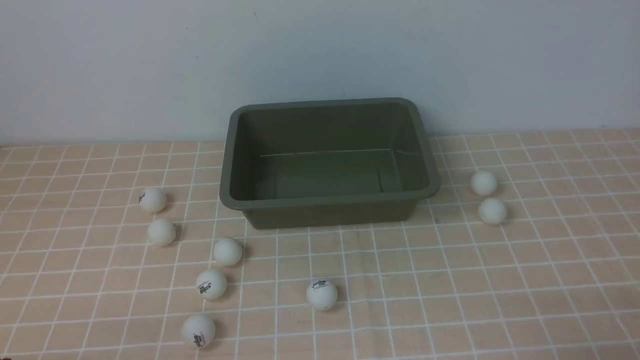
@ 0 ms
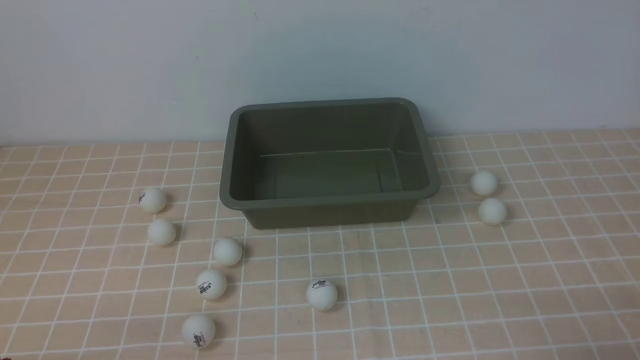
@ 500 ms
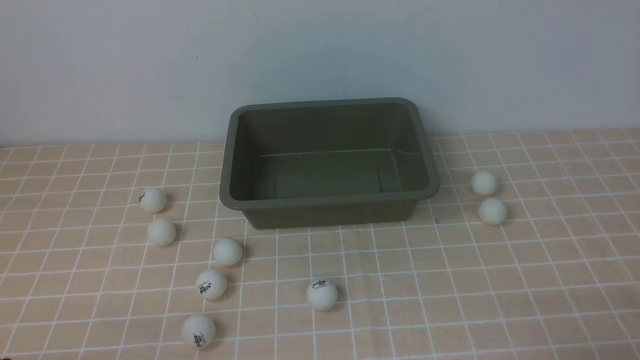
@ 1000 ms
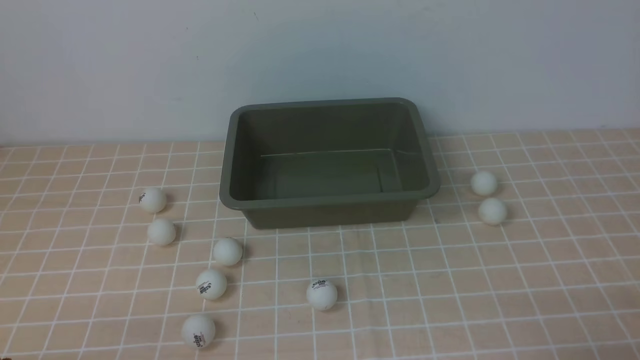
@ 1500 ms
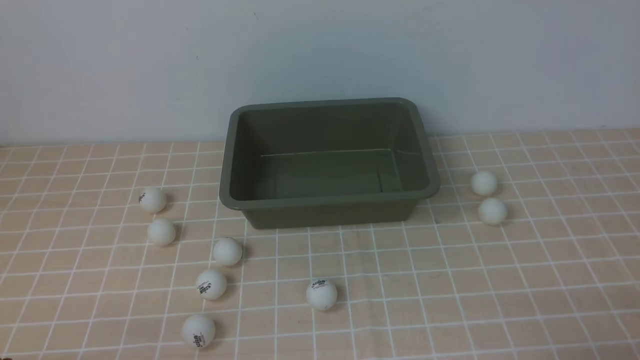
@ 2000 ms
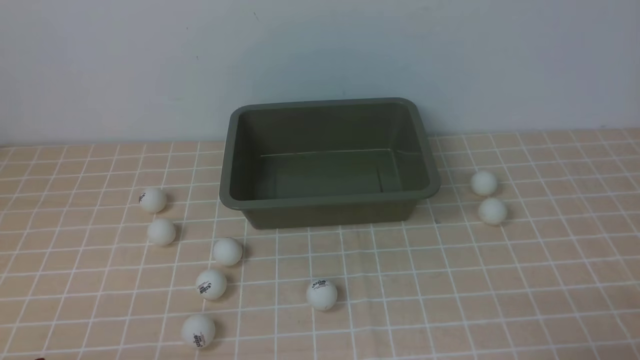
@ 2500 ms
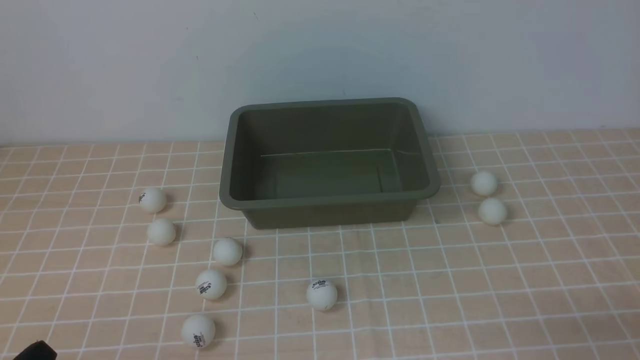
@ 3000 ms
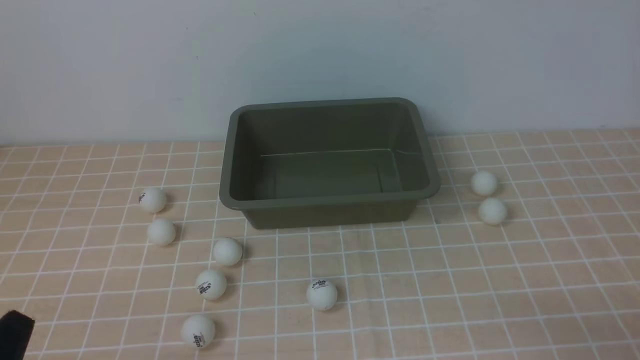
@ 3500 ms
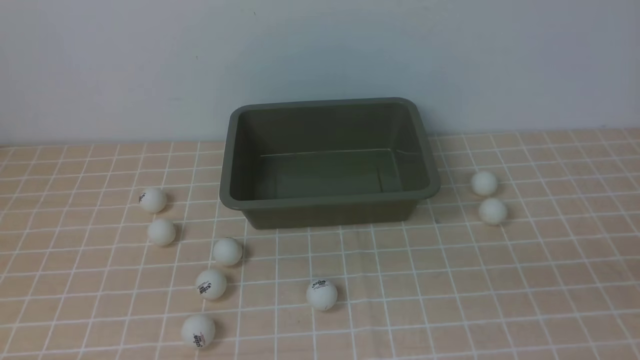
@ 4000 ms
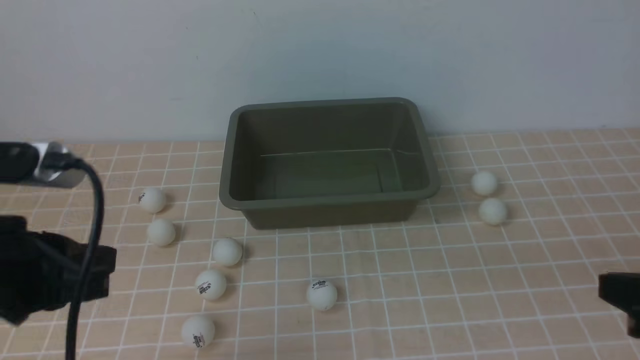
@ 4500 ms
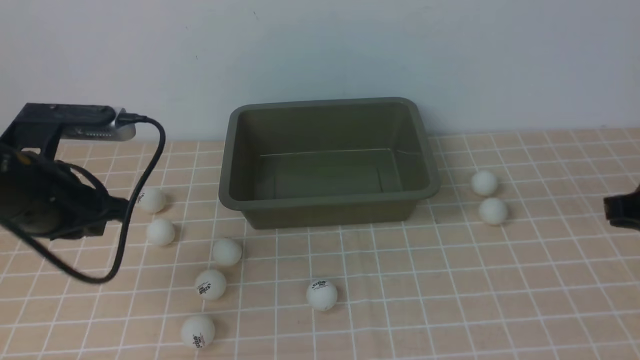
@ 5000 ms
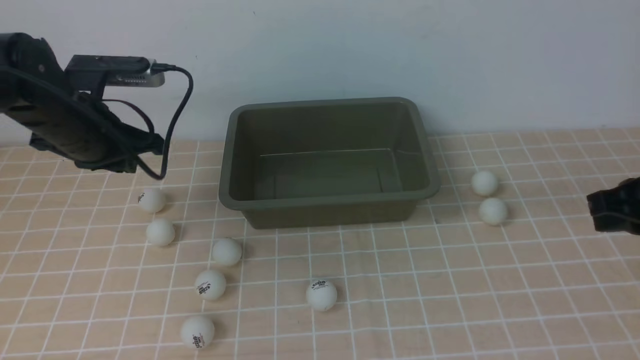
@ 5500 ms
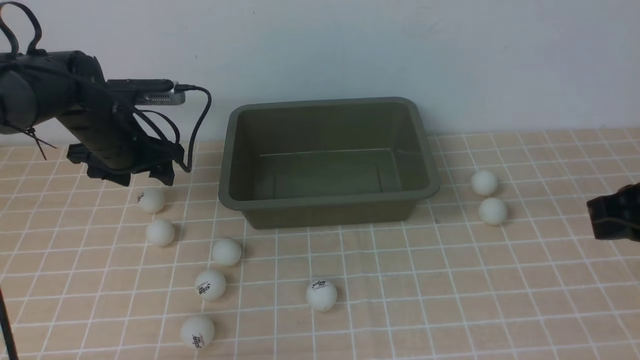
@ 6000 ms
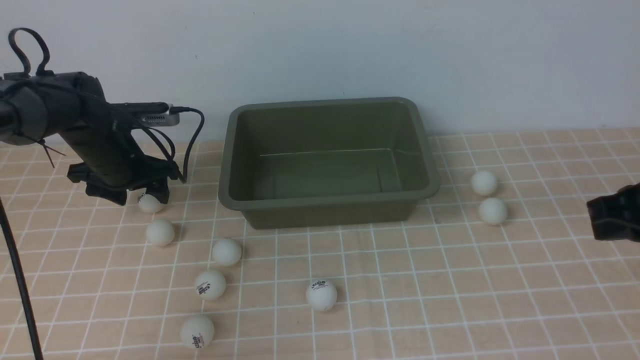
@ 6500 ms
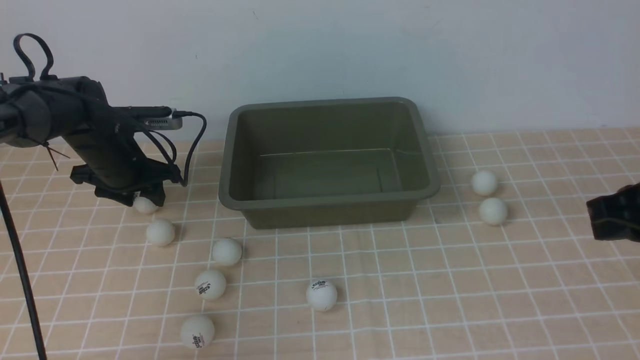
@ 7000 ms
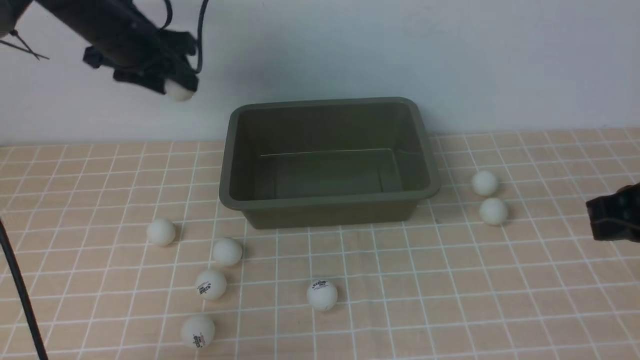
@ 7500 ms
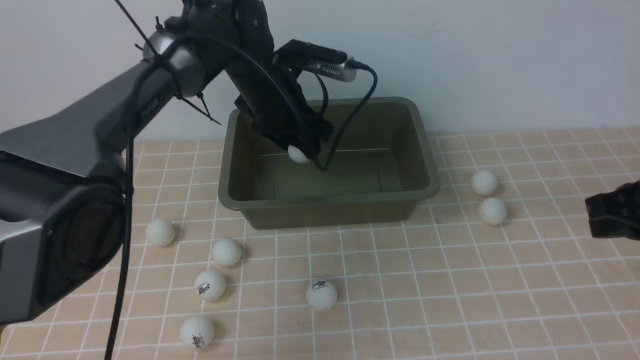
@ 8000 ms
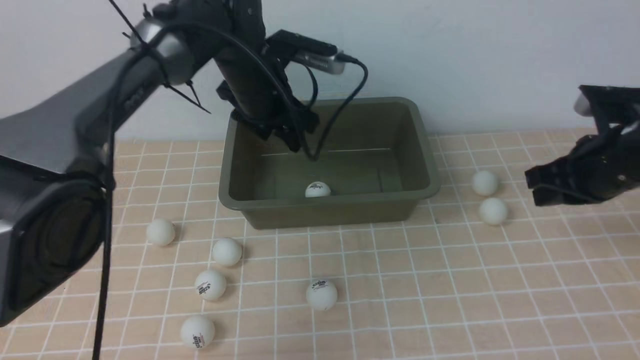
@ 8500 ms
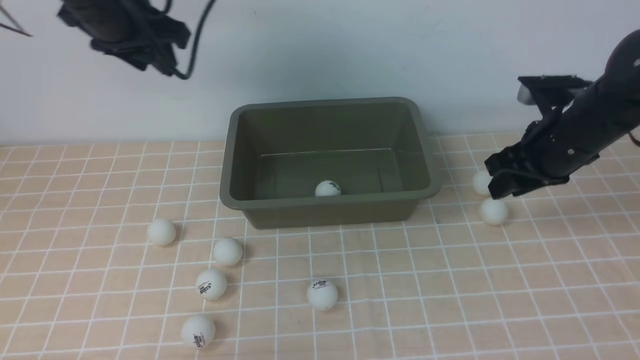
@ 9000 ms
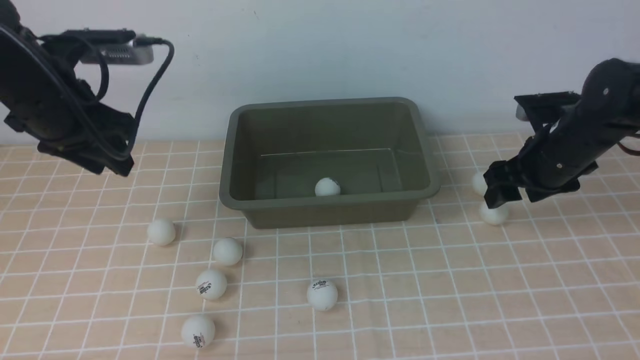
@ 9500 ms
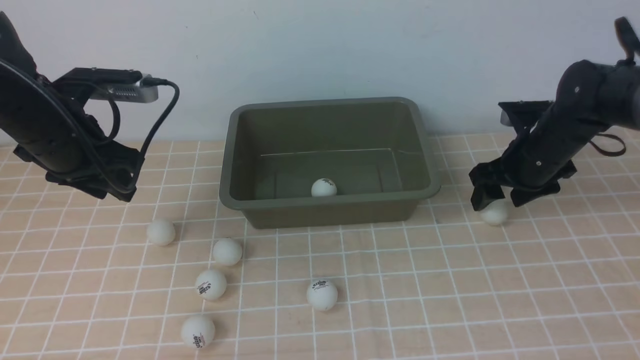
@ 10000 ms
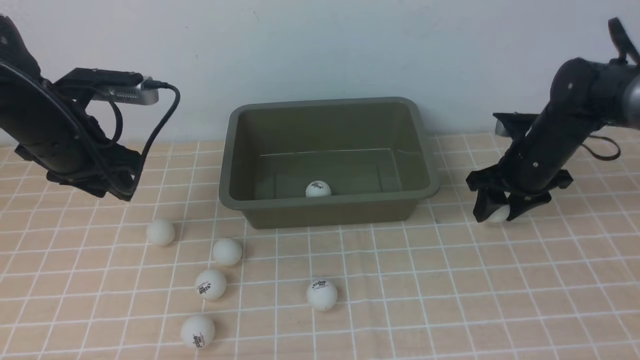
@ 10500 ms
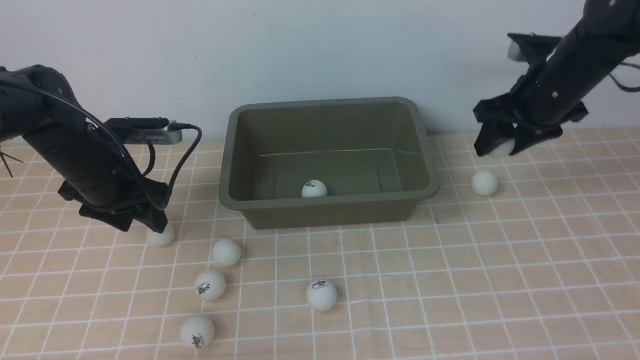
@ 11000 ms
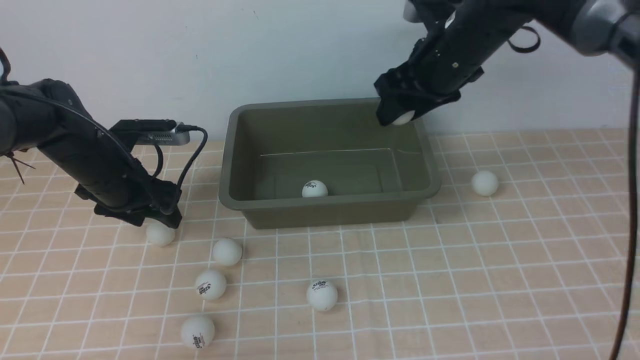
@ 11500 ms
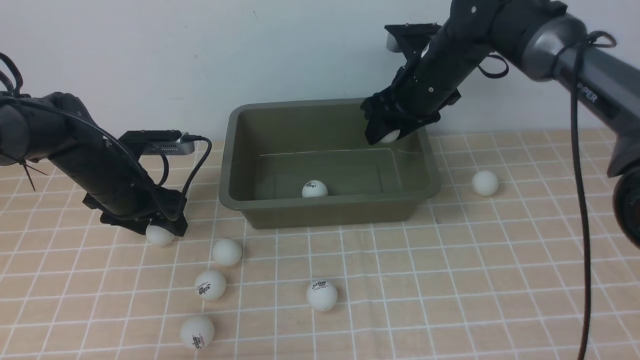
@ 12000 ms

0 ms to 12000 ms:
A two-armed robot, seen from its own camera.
Step, 0 ms to 7000 ms: use the left arm to clamp the table tennis ball closest to it.
Step, 7500 ms to 8500 ms: use the left arm to put the table tennis ball into the box.
Step, 9000 ms to 10500 ms: use the right arm to clamp the table tennis ball closest to it.
4000 ms to 6000 ms: The left gripper is displaced forward by about 40 cm, and opens up, while the right gripper is displaced forward by roughly 20 cm.
6000 ms to 8000 ms: The left gripper shifts approximately 15 cm to the right.
8000 ms to 10000 ms: The right gripper moves forward and downward, some 20 cm, and opens up, while the left gripper shifts roughly 20 cm to the left and backward.
10000 ms to 12000 ms: The left gripper is displaced downward and forward by some 15 cm, and opens up, while the right gripper goes roughly 15 cm to the left and upward.

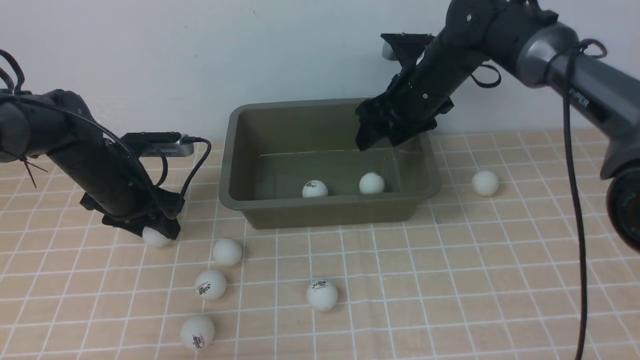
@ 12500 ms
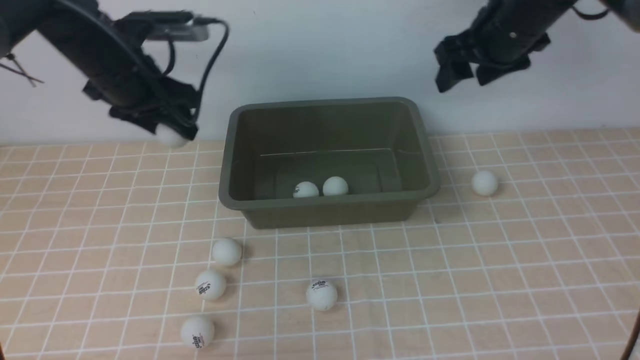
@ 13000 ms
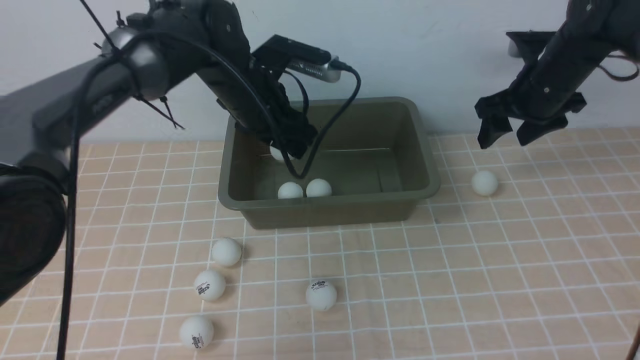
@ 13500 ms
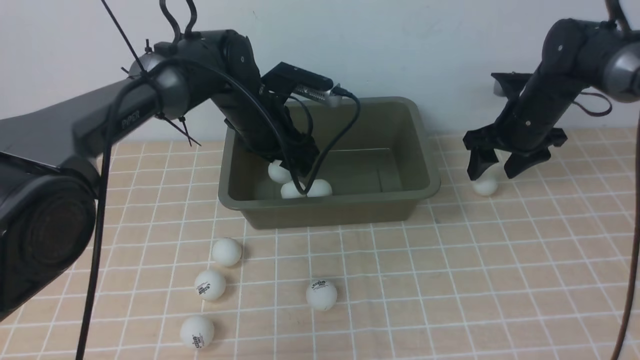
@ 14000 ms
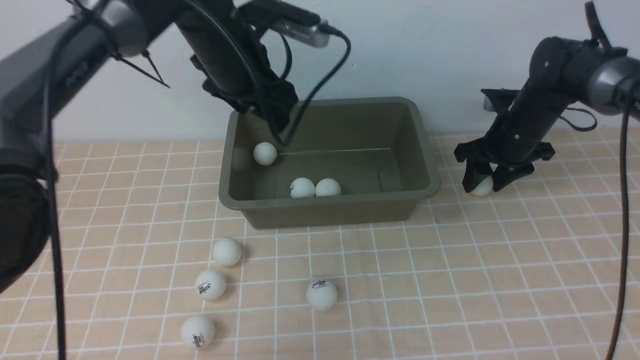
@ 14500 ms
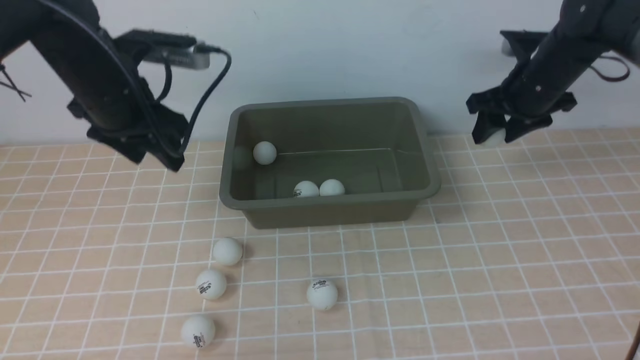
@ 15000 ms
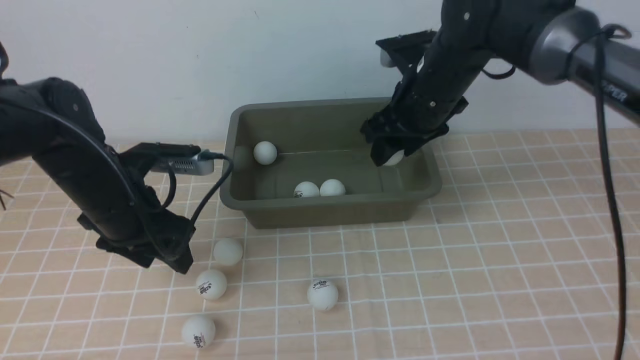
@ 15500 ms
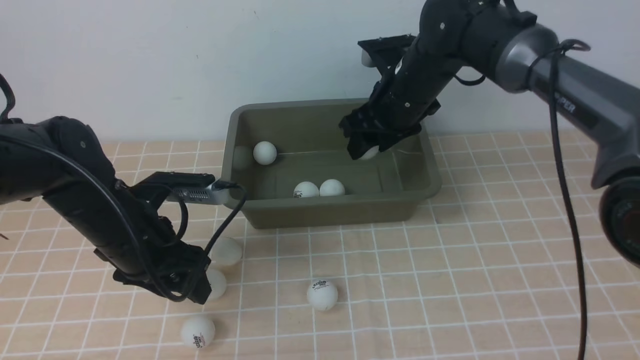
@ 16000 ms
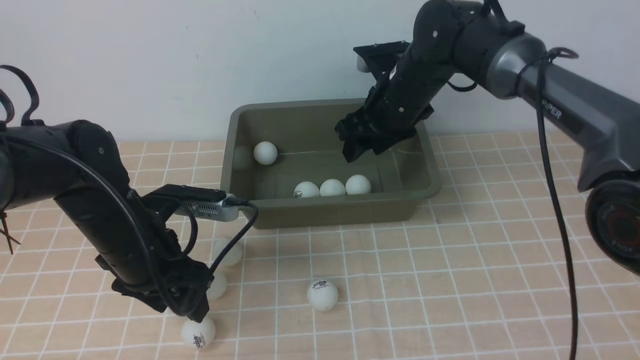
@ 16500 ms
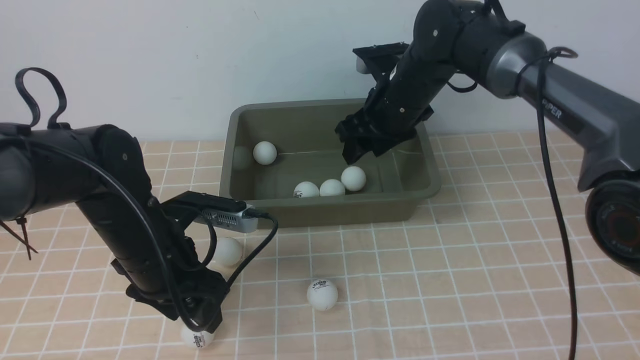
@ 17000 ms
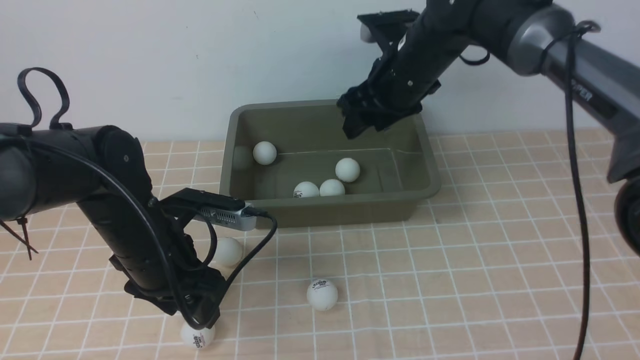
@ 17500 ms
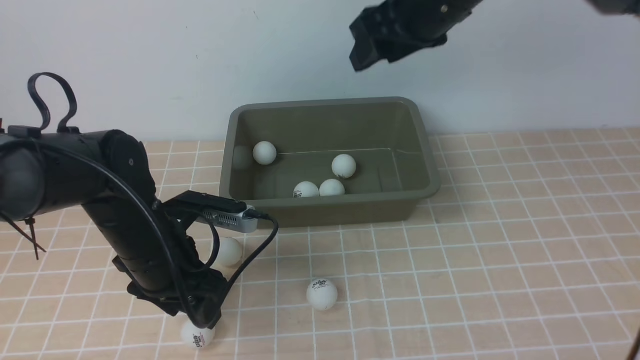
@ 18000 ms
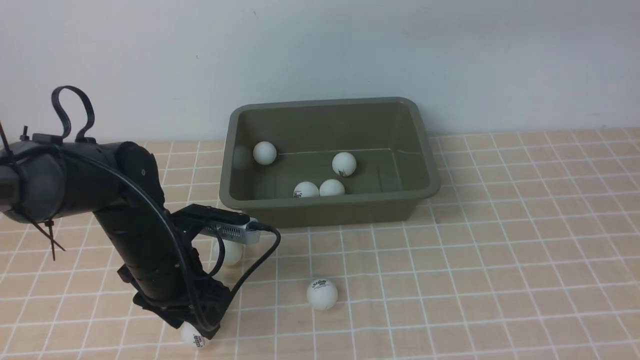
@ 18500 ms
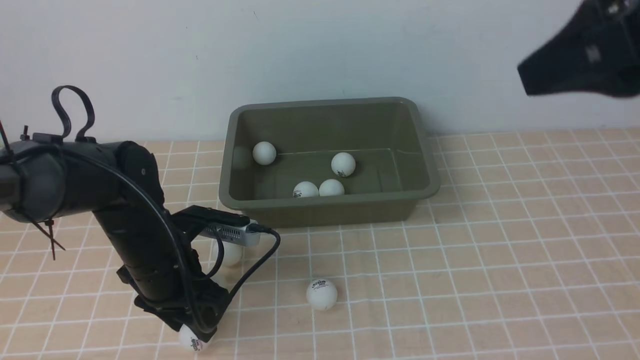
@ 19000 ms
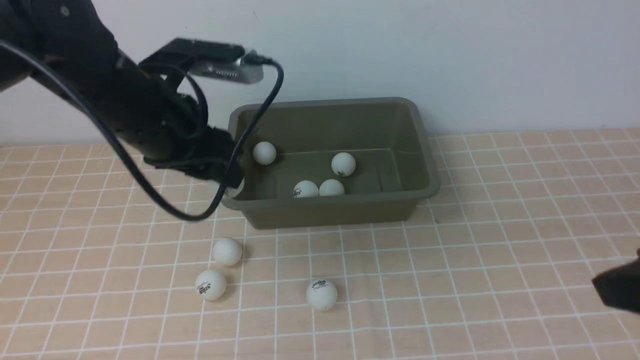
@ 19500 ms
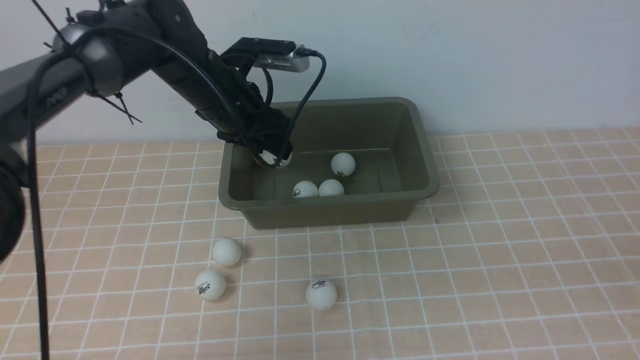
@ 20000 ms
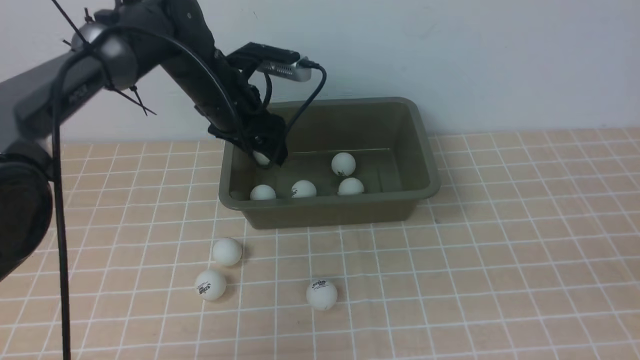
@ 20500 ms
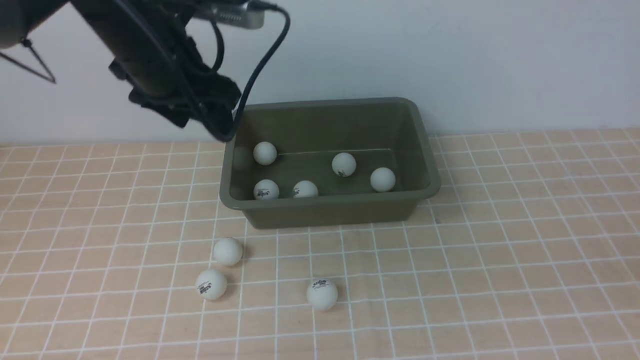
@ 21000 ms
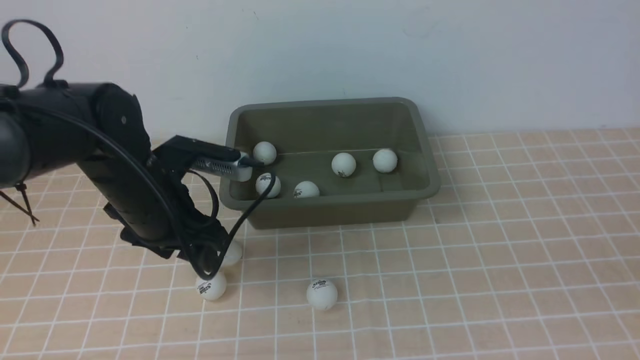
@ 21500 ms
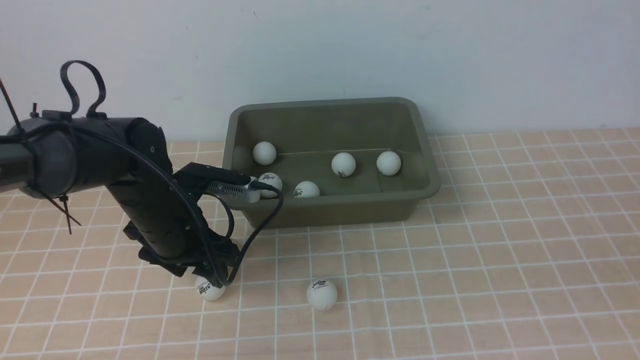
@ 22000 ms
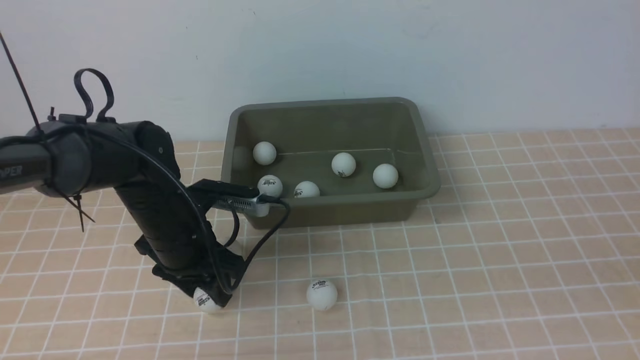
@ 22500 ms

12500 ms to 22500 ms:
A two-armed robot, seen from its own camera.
Step, 13000 ms to 13500 ms: use the left arm to put the table tennis ball into the box.
Step, 14000 ms to 14500 ms: use the right arm to clamp the table tennis ball closest to it.
Step, 15500 ms to 16500 ms: use the right arm to put the table tennis ball into the box.
Step, 19500 ms to 20500 ms: use the left arm to put the table tennis ball into the box.
12500 ms to 14500 ms: The left gripper travels to the right and upward by some 20 cm, while the right gripper travels to the right and downward by roughly 15 cm.
14500 ms to 16500 ms: The right gripper moves to the left and upward, about 20 cm. The left gripper moves backward, downward and to the left, roughly 20 cm.
16500 ms to 18500 ms: The right gripper moves upward and backward, roughly 30 cm.
18500 ms to 20500 ms: The right gripper travels backward, to the right and downward by roughly 35 cm, and closes up, while the left gripper is displaced forward and upward by some 20 cm.
20500 ms to 22500 ms: The left gripper moves backward and downward, some 15 cm.
